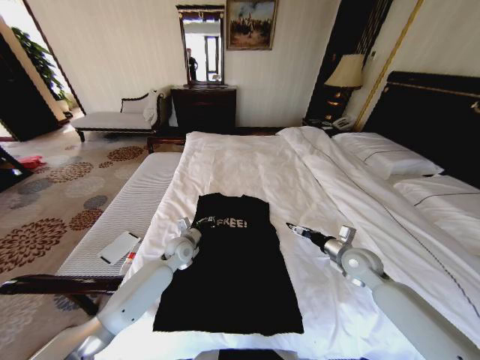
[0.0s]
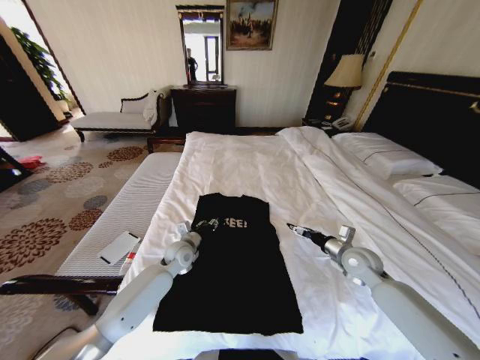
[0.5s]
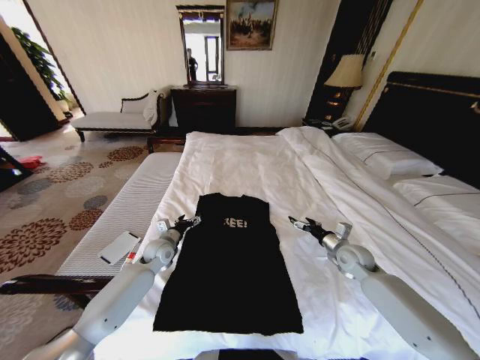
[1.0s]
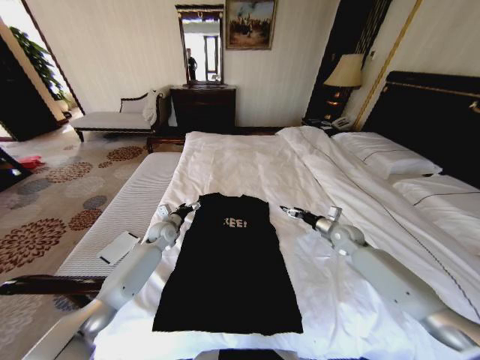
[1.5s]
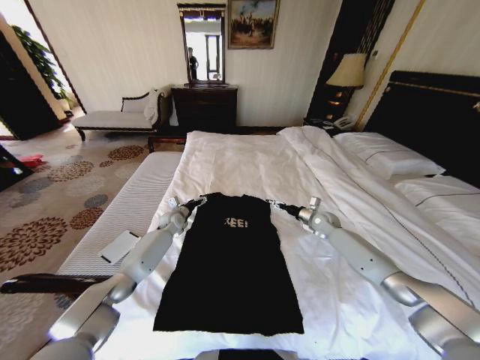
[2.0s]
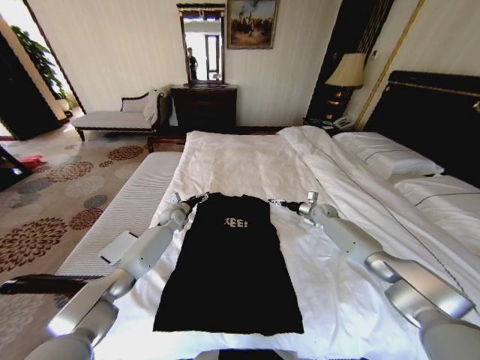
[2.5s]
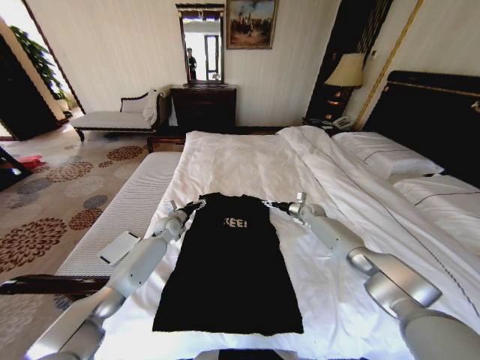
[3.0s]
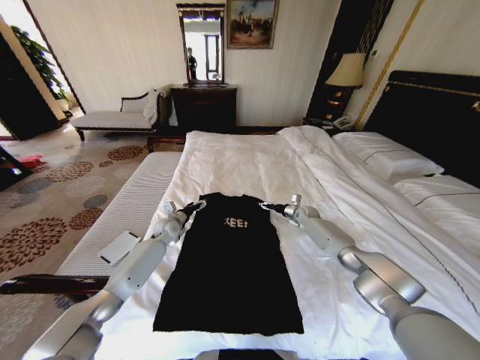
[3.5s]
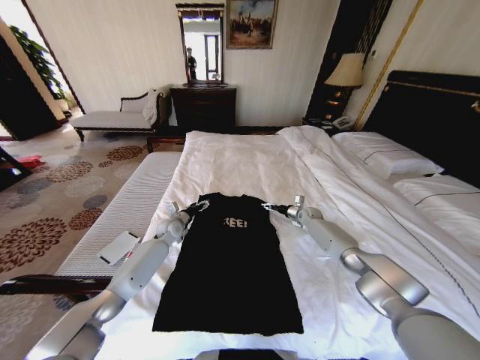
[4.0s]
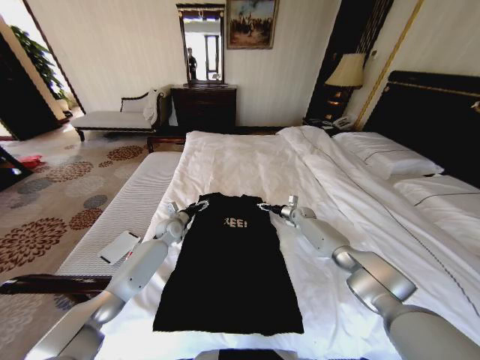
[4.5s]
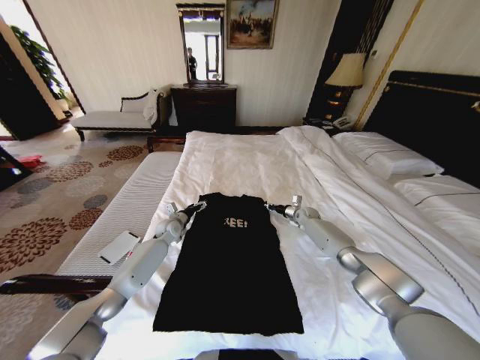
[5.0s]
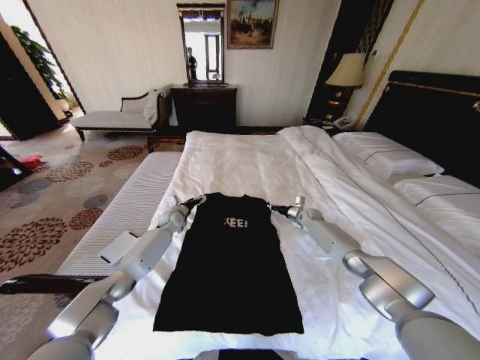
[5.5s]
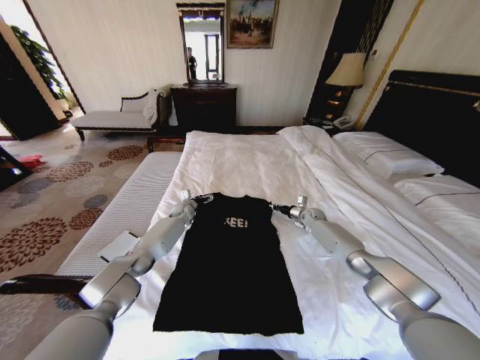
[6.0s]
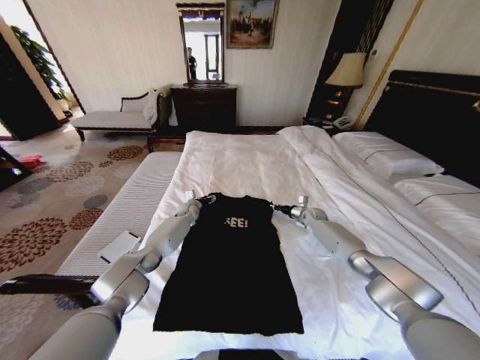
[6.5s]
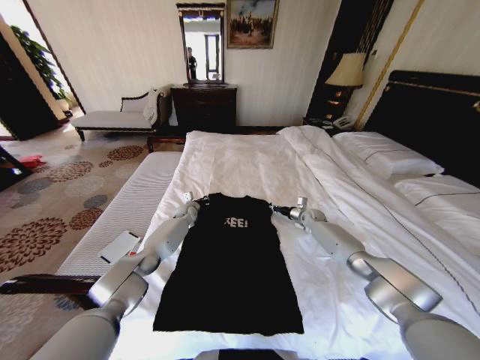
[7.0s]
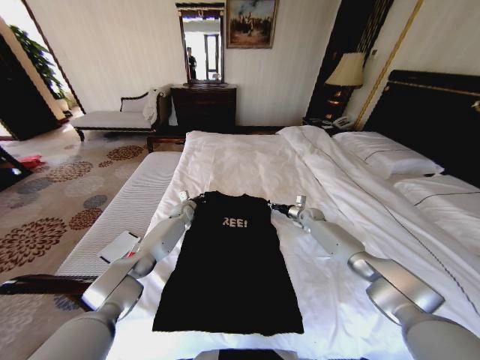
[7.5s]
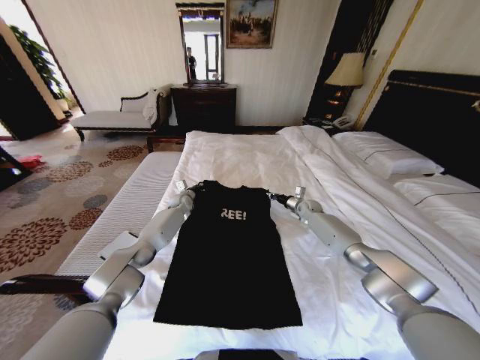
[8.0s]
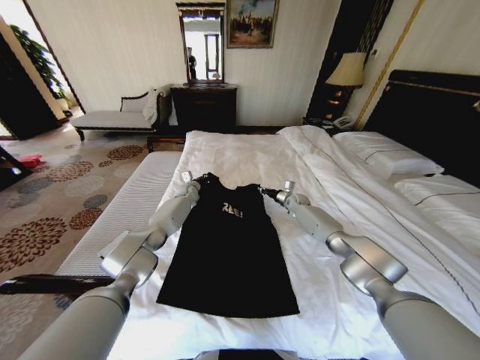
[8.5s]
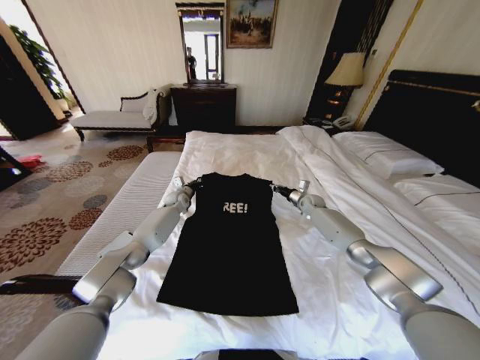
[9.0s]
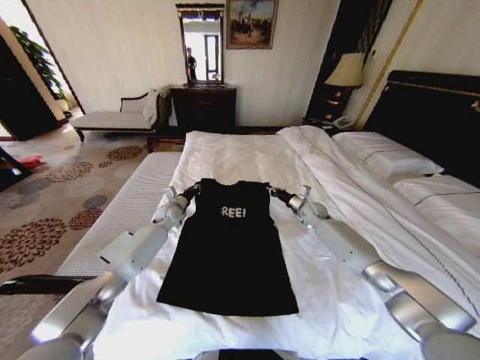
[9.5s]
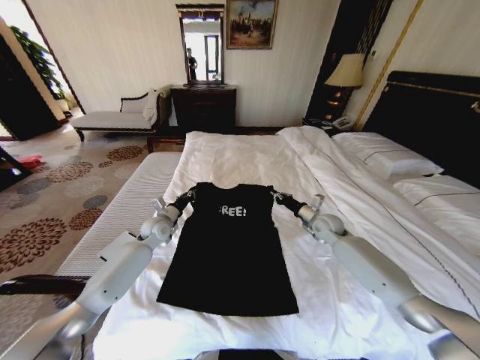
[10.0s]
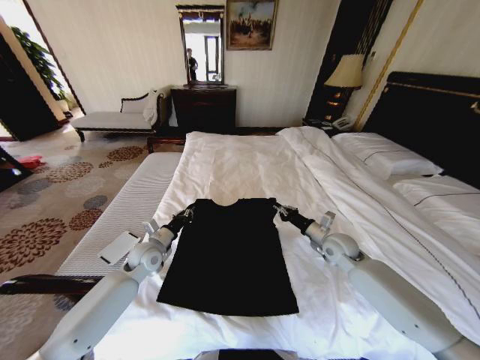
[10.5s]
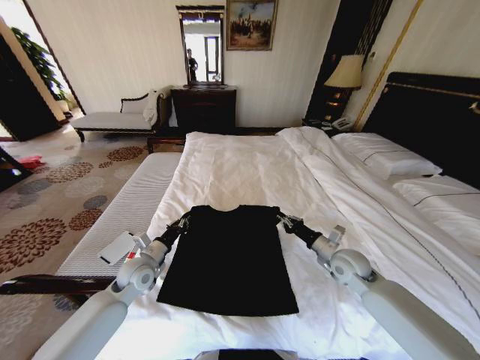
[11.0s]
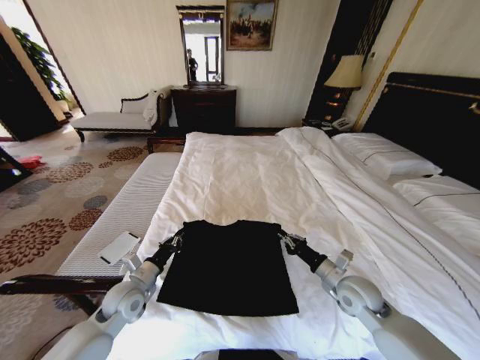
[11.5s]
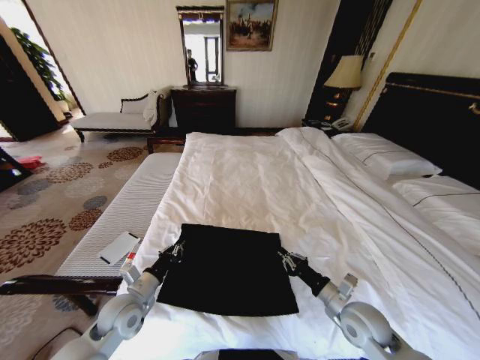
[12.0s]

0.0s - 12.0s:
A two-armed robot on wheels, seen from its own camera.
Task of the whole recording: Fold the clothes on the bed.
0.0s - 2.0s: The left gripper travels forward and to the left by approximately 15 cm, and opens up. The right gripper shifts roughly 20 cm forward.
2.0s - 4.0s: The right gripper travels forward by about 5 cm. Meanwhile the left gripper shifts by roughly 5 cm.
4.0s - 6.0s: The right gripper closes its fingers. The left gripper goes some 10 cm forward.
6.0s - 8.0s: The left gripper closes.
8.0s - 10.0s: Both grippers move backward, some 15 cm.
10.0s - 12.0s: Both grippers move backward, some 25 cm.

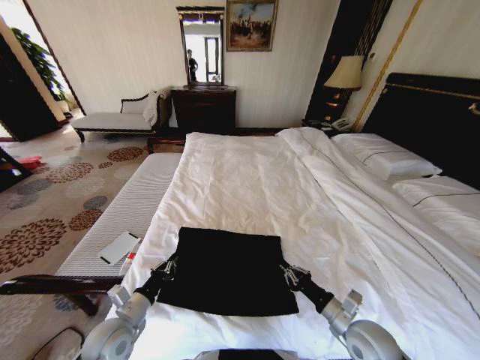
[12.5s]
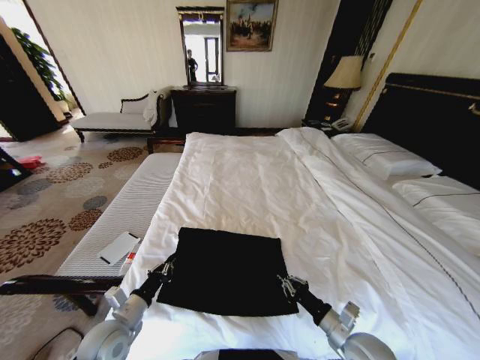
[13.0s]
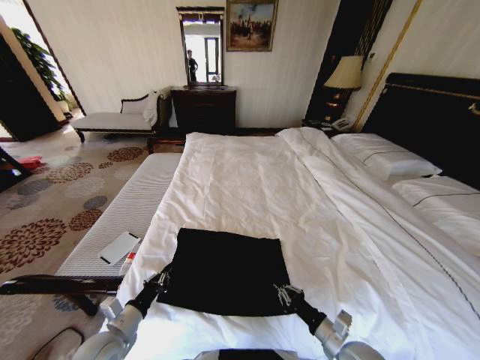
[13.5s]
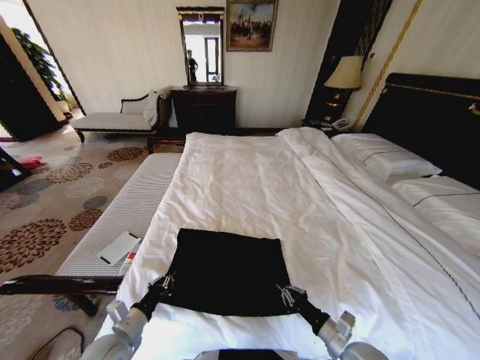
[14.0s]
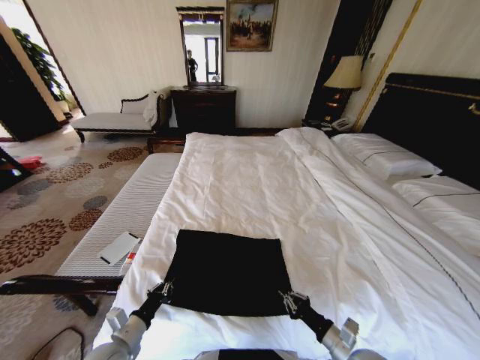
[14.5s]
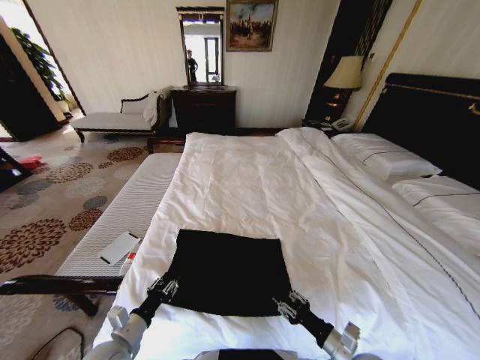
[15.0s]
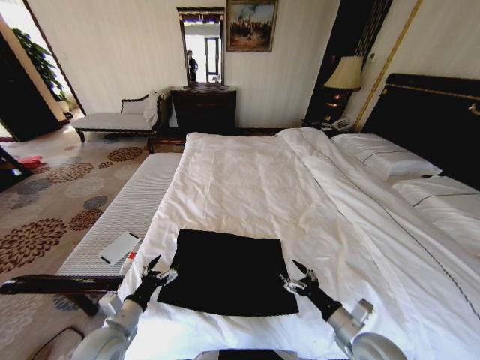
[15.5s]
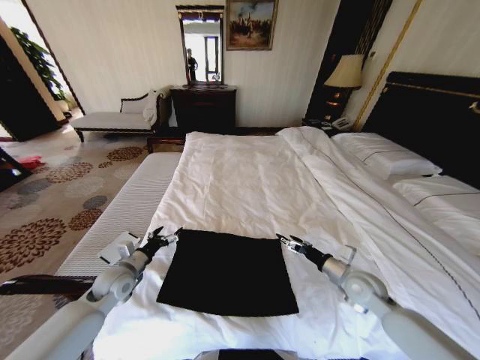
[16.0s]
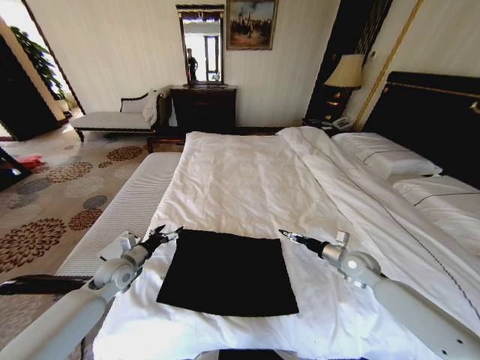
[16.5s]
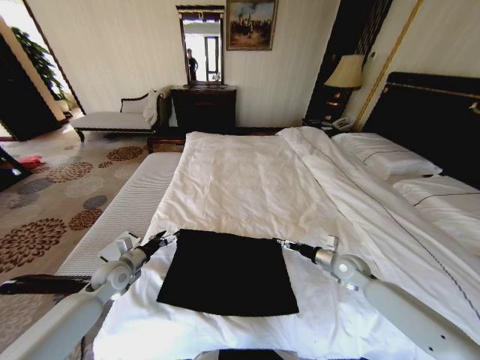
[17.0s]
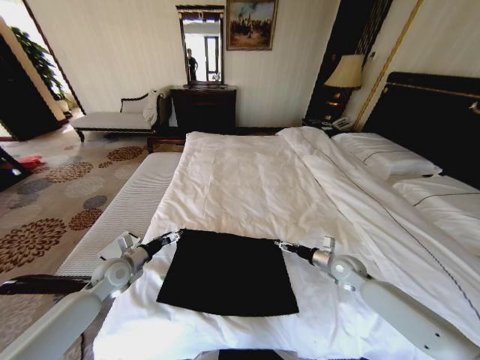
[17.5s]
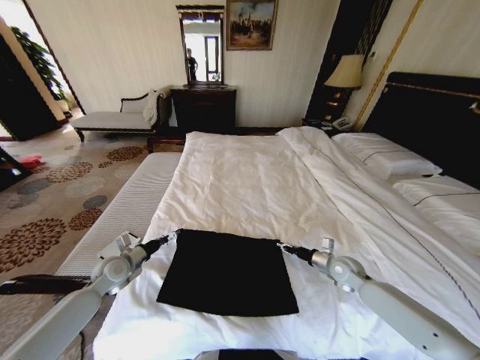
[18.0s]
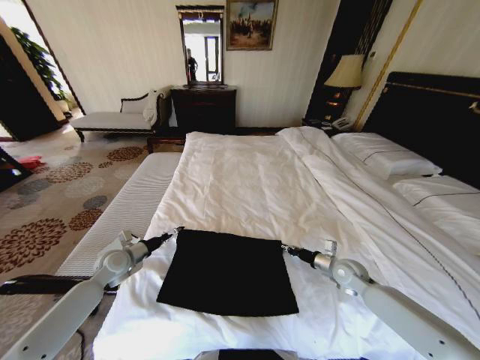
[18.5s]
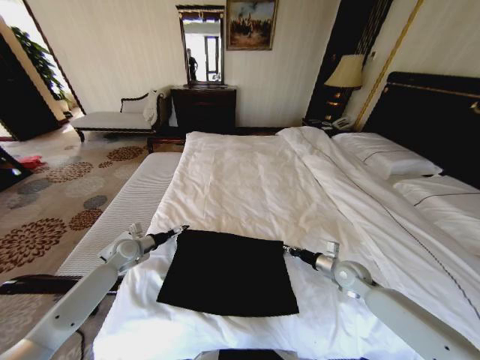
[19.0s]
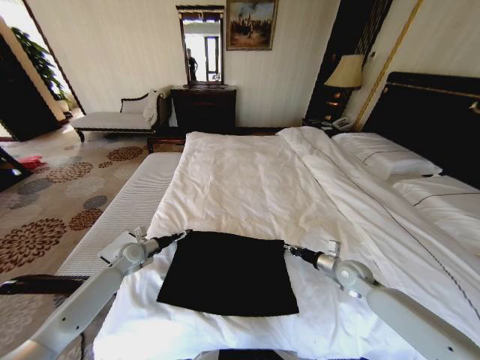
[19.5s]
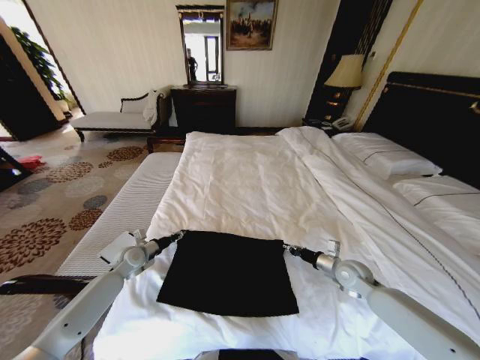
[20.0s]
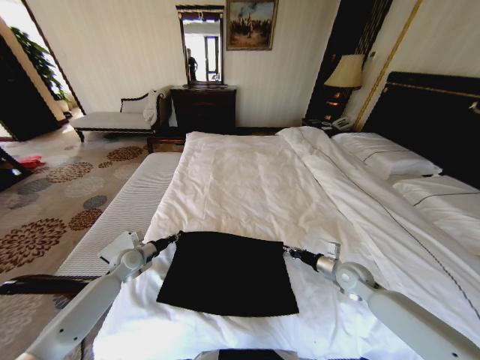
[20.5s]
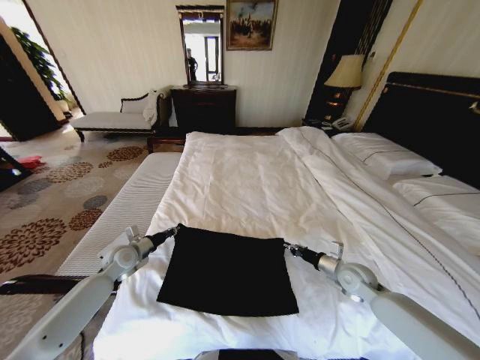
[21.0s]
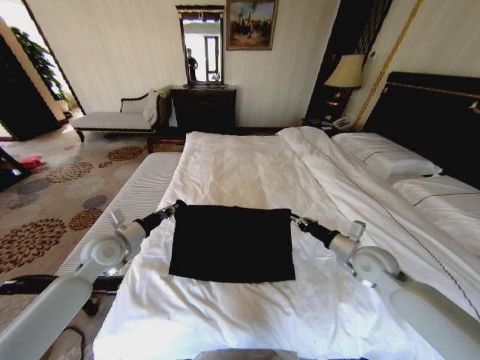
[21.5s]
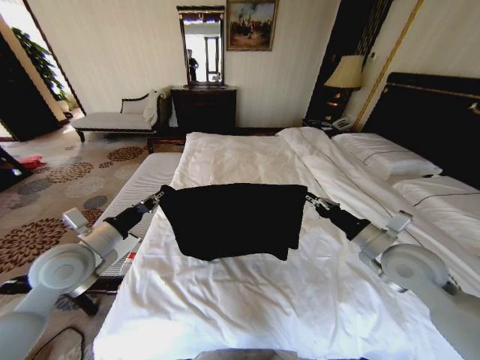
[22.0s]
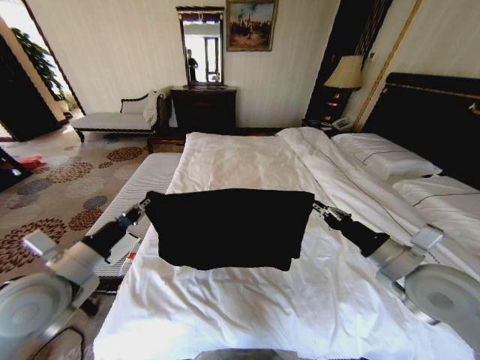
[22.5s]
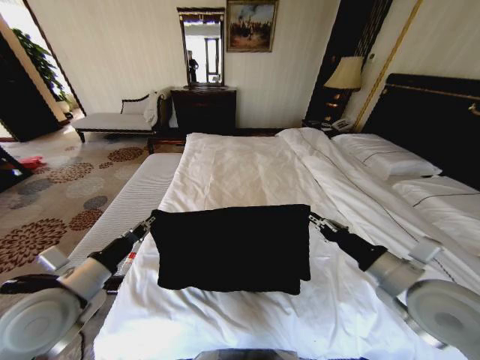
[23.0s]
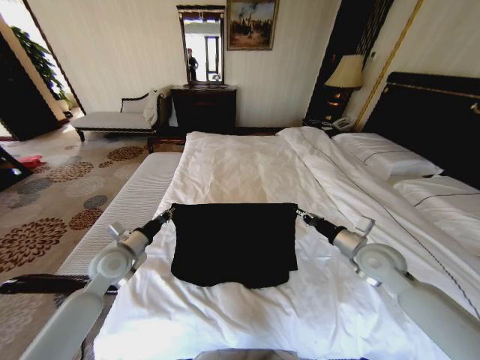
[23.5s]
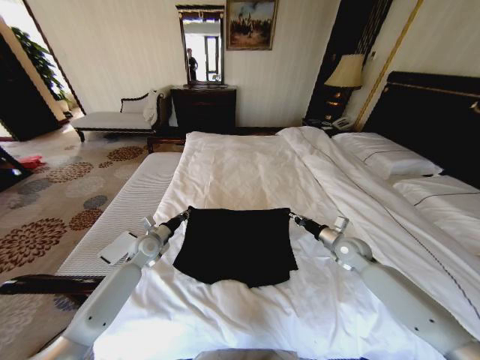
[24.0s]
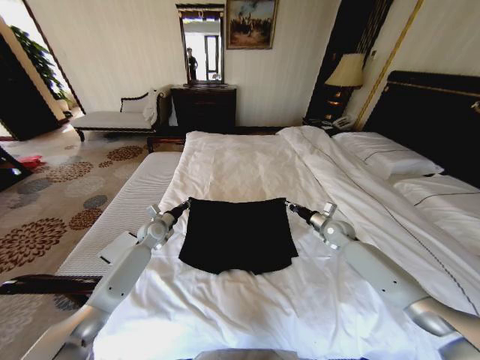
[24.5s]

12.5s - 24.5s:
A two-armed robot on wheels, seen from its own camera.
Task of the whole recording: Fold the clothes on the bed.
12.5s - 14.5s: The left gripper moves about 5 cm, while the right gripper goes approximately 5 cm backward.
14.5s - 16.5s: The grippers both shift forward by roughly 20 cm. The right gripper opens; the left gripper opens up.
16.5s - 18.5s: The right gripper closes up.
18.5s - 20.5s: The left gripper shifts by about 5 cm, and closes its fingers.
20.5s - 22.5s: Both grippers move upward and backward, approximately 25 cm.
22.5s - 24.5s: Both grippers travel together forward and downward, about 30 cm.

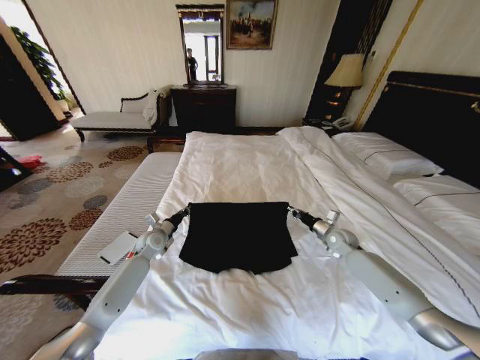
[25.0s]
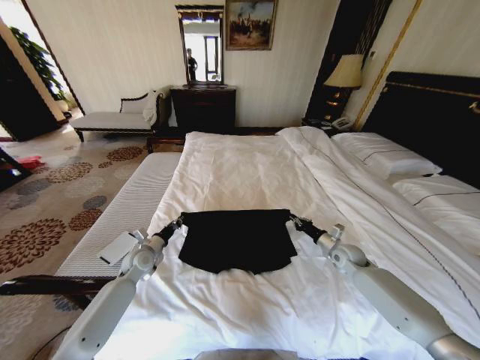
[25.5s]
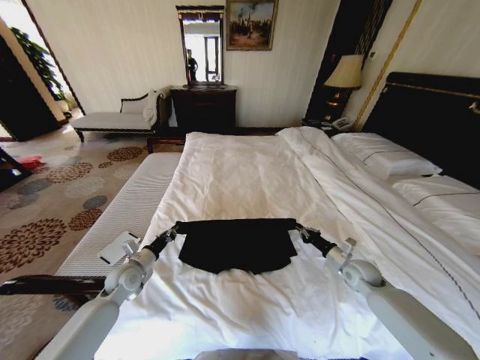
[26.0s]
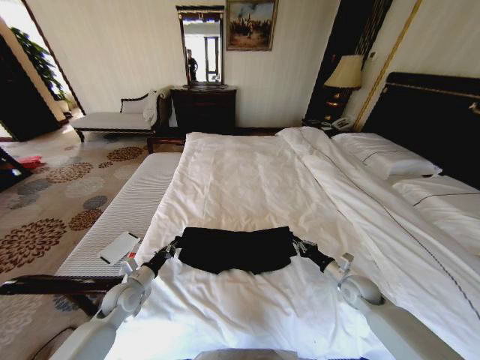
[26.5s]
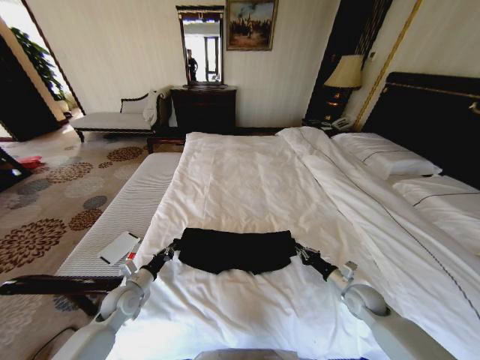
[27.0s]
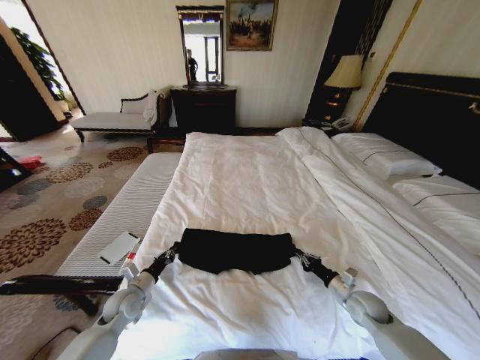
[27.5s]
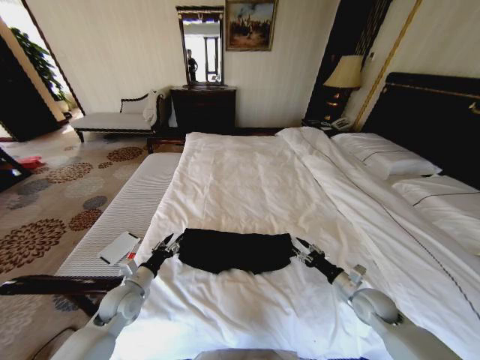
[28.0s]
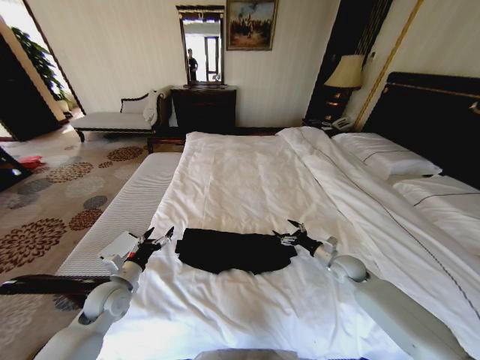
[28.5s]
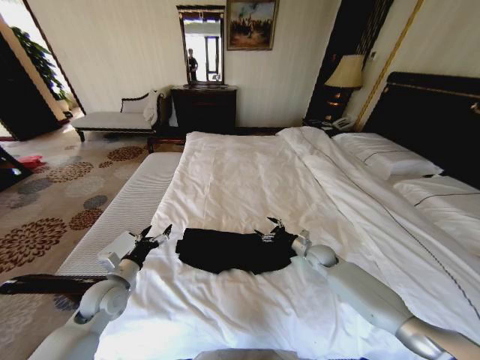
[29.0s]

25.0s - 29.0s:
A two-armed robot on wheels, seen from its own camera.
Task of the whole recording: Fold the clothes on the bed.
25.0s - 27.0s: Both grippers travel together backward, some 20 cm.
27.0s - 29.0s: The left gripper shifts roughly 5 cm upward, and opens. The right gripper heads forward and to the left, covering roughly 15 cm, and opens up.
